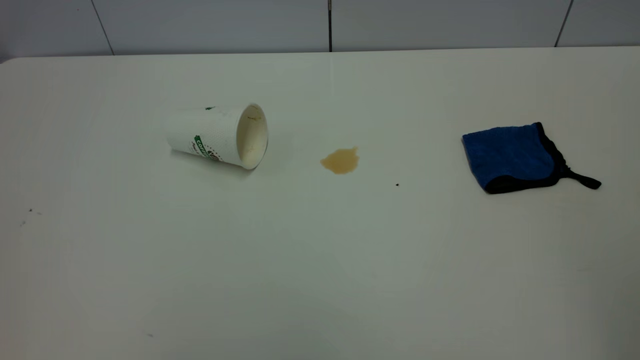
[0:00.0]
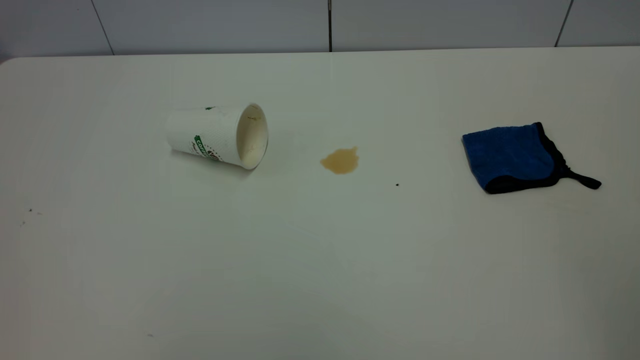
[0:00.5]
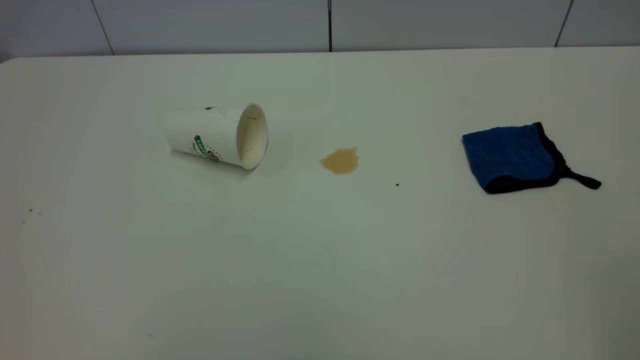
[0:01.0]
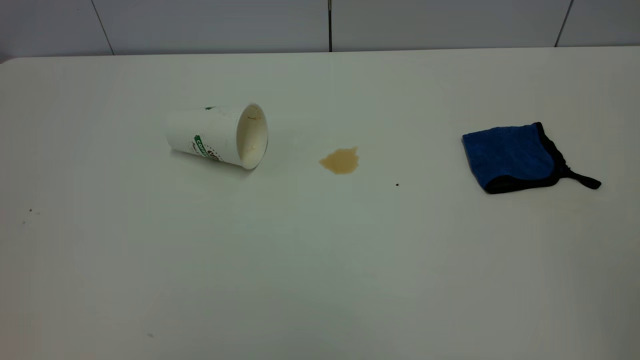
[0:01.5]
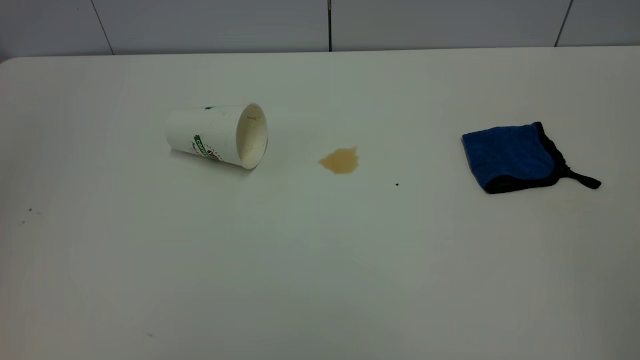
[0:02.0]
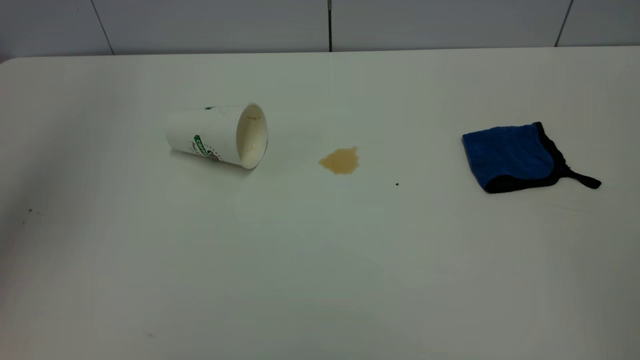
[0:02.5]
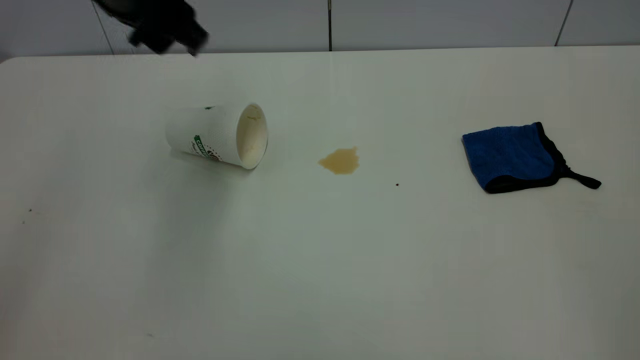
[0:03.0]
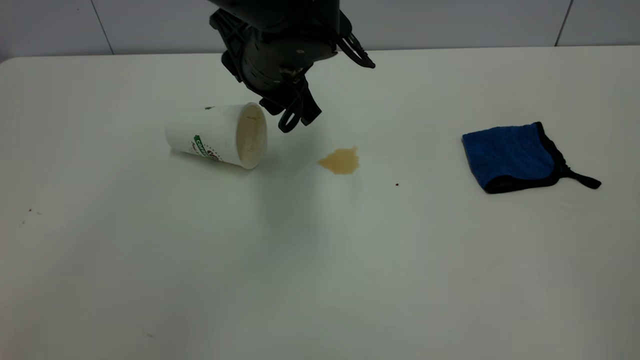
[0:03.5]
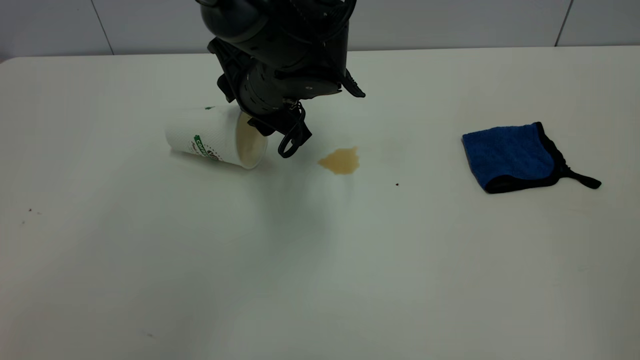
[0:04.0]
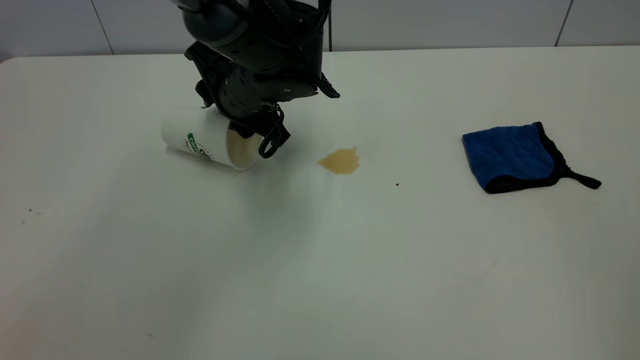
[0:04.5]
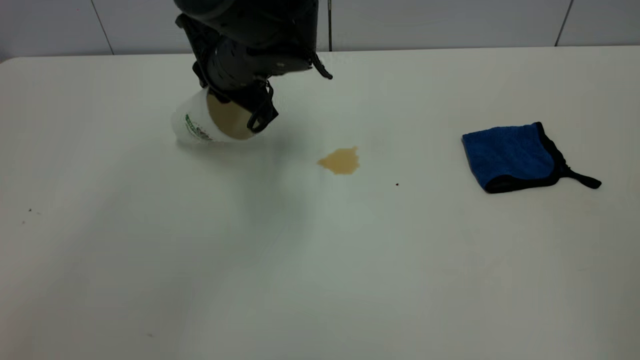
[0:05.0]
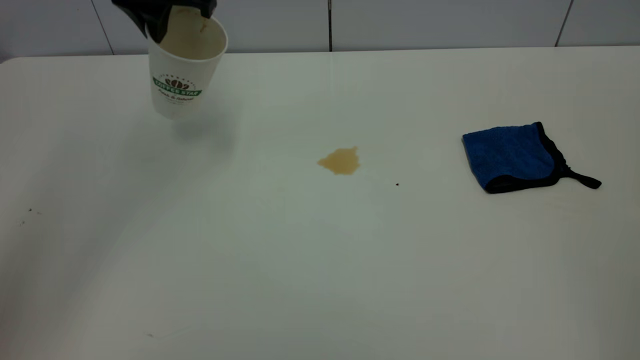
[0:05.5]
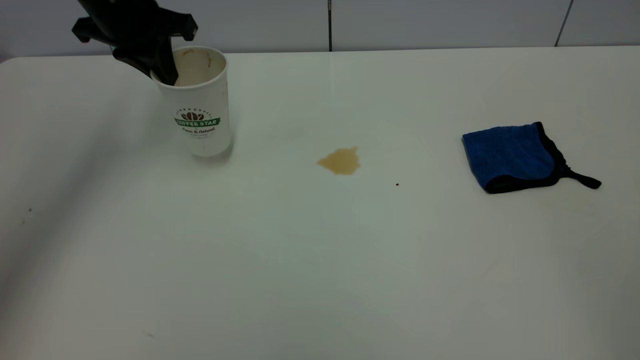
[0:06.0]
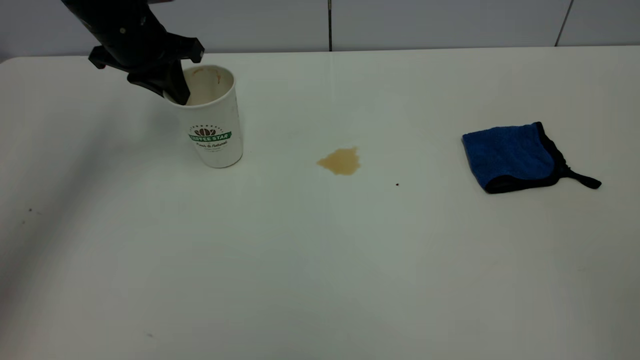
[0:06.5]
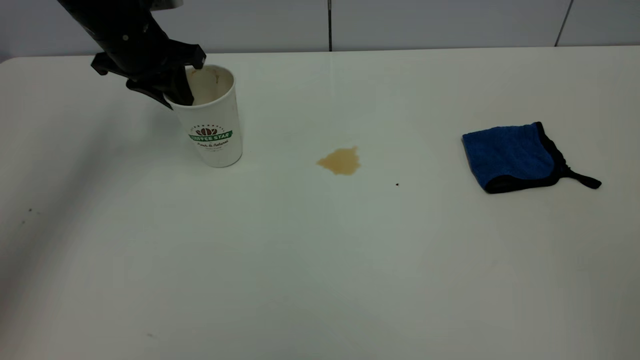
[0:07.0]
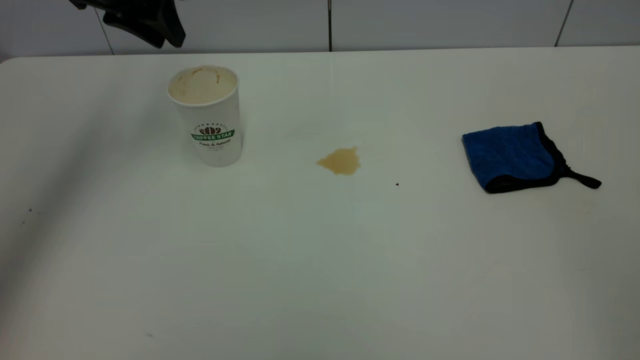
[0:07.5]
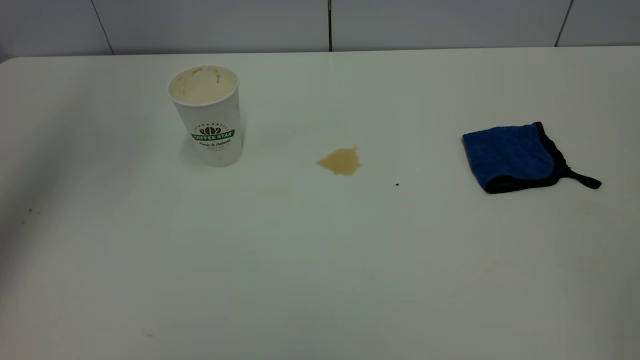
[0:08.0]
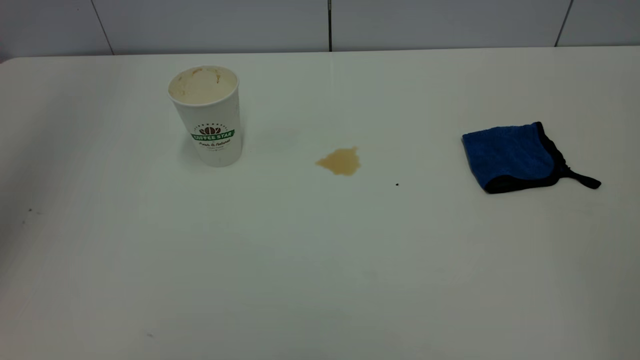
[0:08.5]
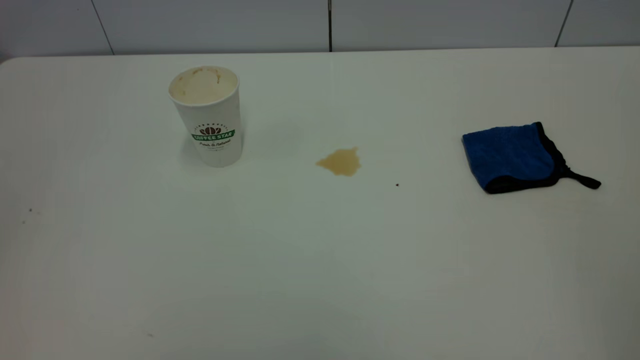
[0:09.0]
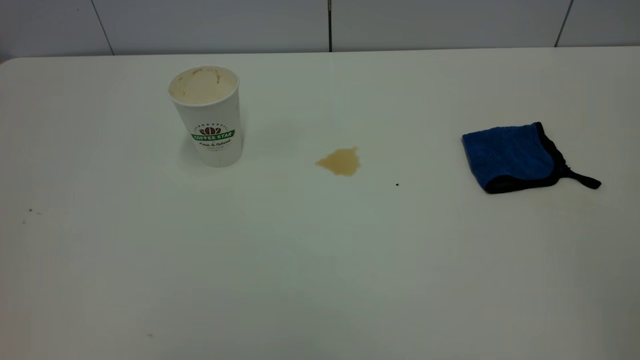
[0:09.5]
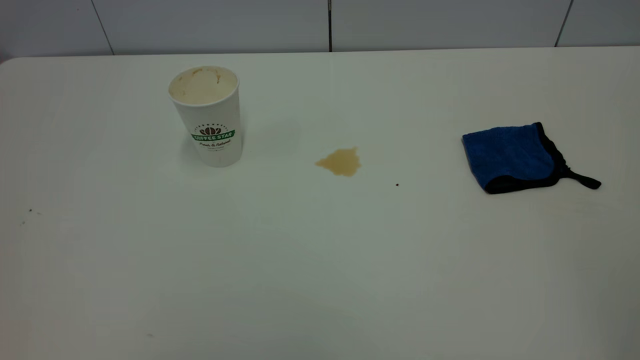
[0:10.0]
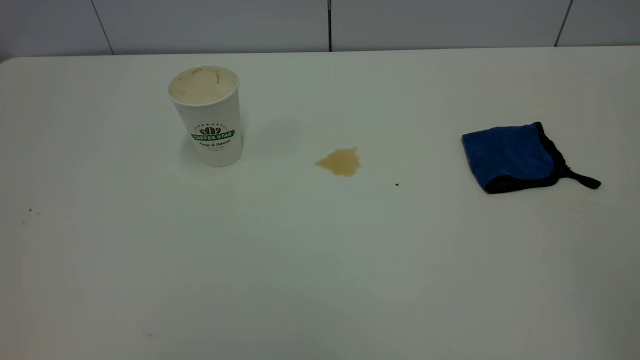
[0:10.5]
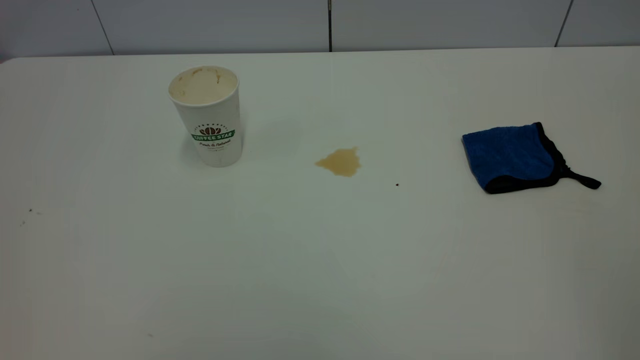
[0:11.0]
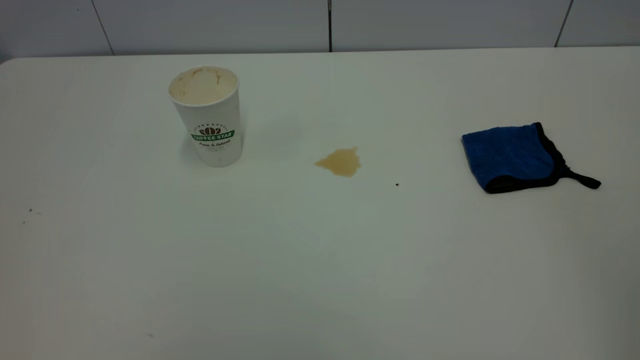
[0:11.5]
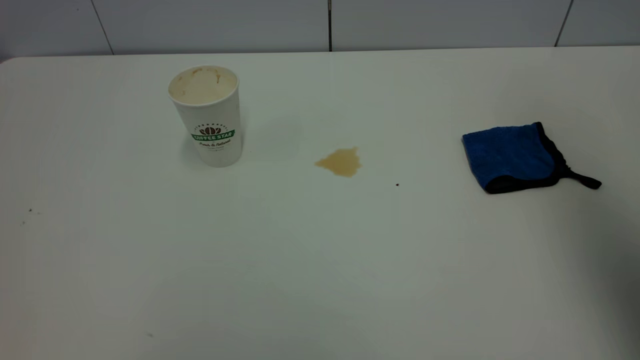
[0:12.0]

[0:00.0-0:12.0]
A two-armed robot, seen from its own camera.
Task of the whole recording: the left gripper pick up the fallen cup and place it upright, the right gripper grasp the blue rag and wipe the tea stain on the table, the right gripper put the blue rag back in its original position.
Step, 0:00.0 to 0:07.0: Stand the paper cup upright.
0:02.0 to 0:04.0: The left gripper goes roughly 50 cm downward, to the right and forward.
0:04.0 to 0:06.0: The left gripper moves to the left, upward and forward, some 20 cm, and closes its fingers.
0:06.0 to 0:08.0: The left gripper is displaced upward and backward by about 20 cm, and opens up.
0:08.0 to 0:10.0: The left gripper is displaced backward by about 40 cm.
0:10.0 to 0:12.0: The right gripper moves forward, some 25 cm.

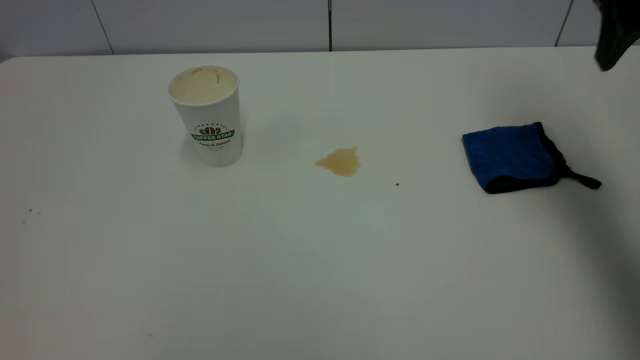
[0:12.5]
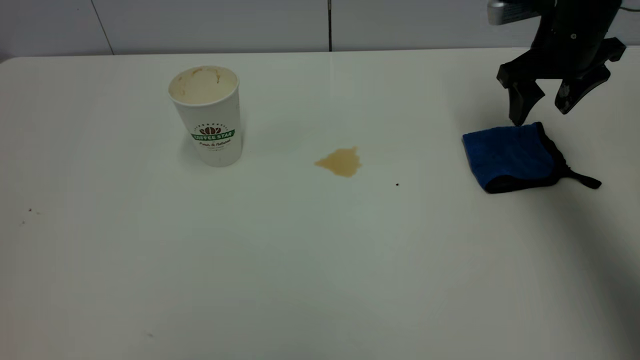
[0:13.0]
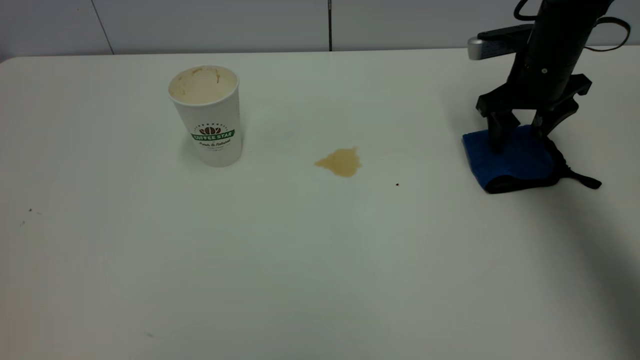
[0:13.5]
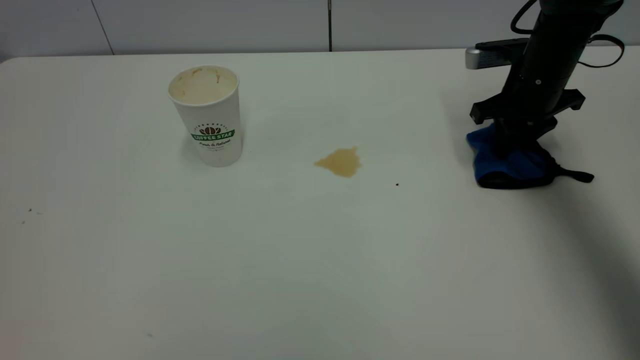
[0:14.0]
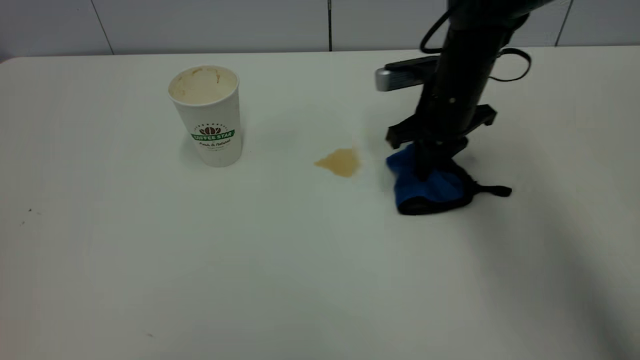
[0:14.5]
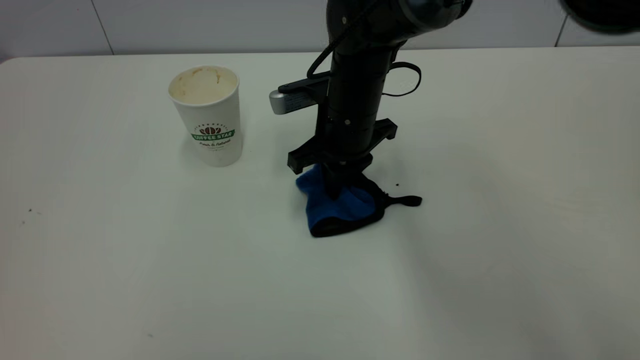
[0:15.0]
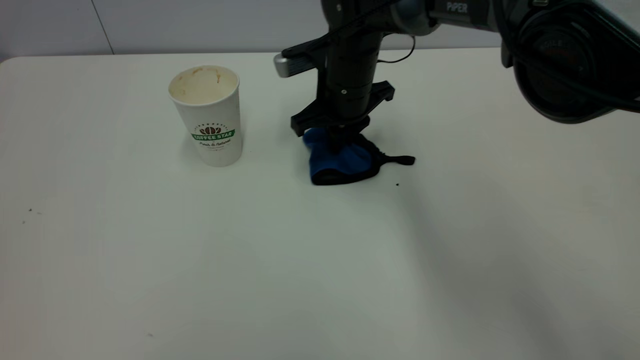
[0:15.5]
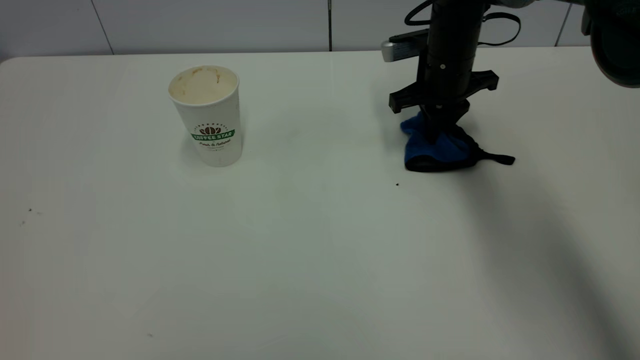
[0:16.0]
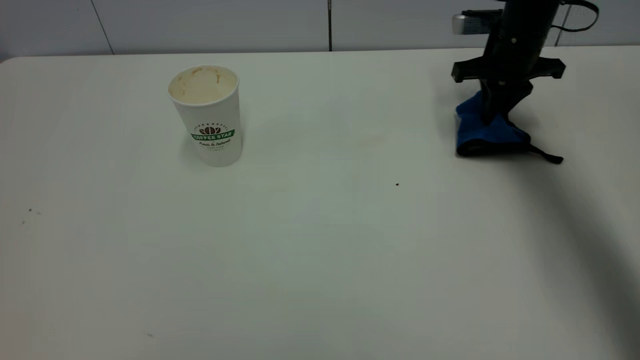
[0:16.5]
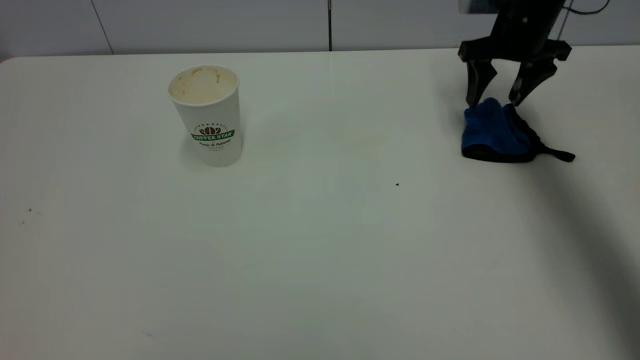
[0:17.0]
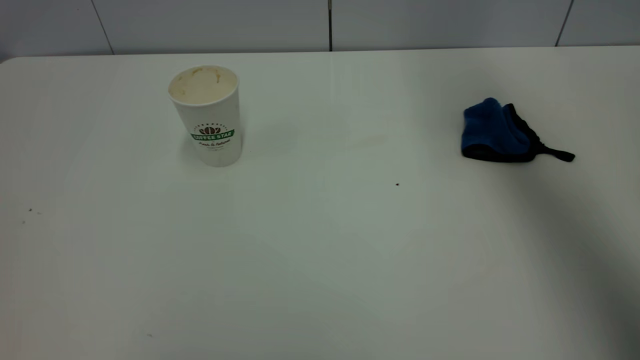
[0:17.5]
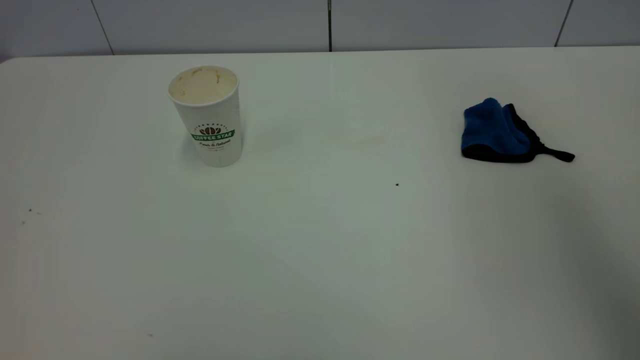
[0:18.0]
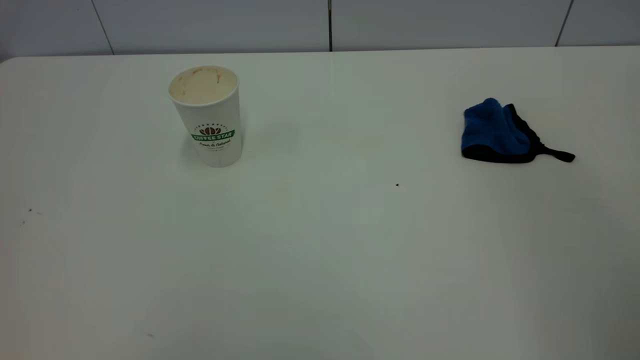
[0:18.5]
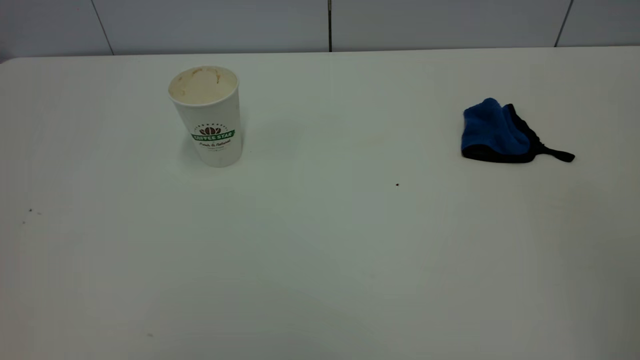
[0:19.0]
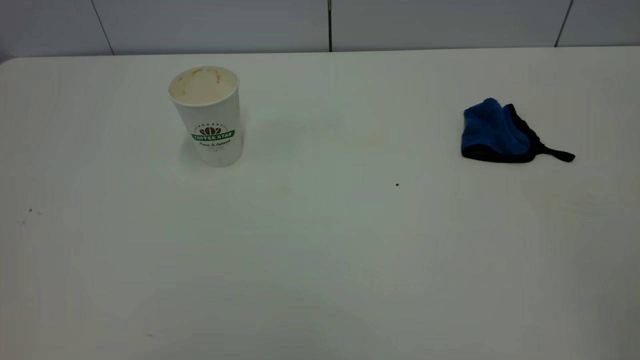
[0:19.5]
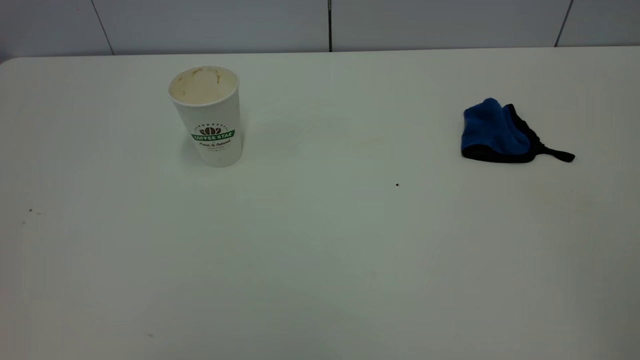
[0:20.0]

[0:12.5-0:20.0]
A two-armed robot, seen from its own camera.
Task of the whole recording: the left gripper pick up the fallen cup and place it upright, the right gripper grasp the blue rag and wipe the tea stain on the table, the right gripper put the blue rag back in its original position.
Step, 0:12.5 to 0:17.0: Wipe the stains off the table with a rag.
0:12.5 to 0:14.5: The right gripper moves downward, to the left and forward, approximately 25 cm, and closes up.
0:14.5 to 0:16.5: The right gripper moves to the right and forward, some 15 cm.
0:16.5 to 0:18.0: The right gripper goes some 50 cm upward and backward, and opens up.
